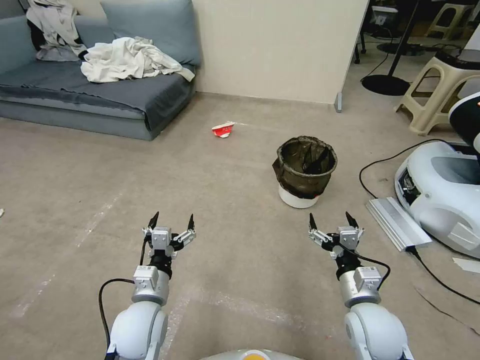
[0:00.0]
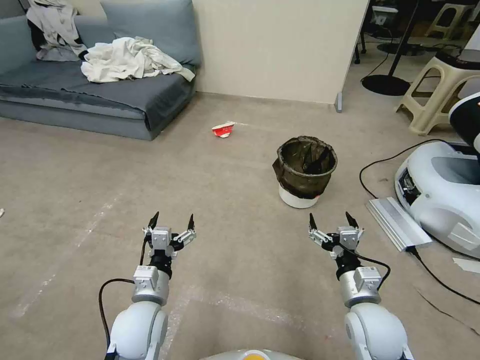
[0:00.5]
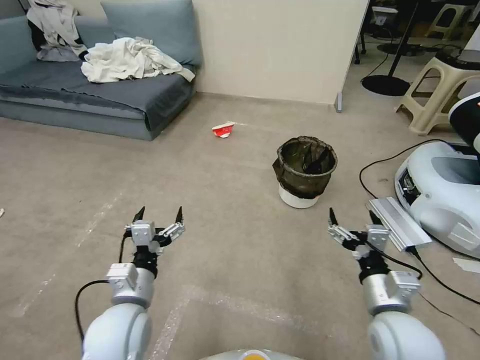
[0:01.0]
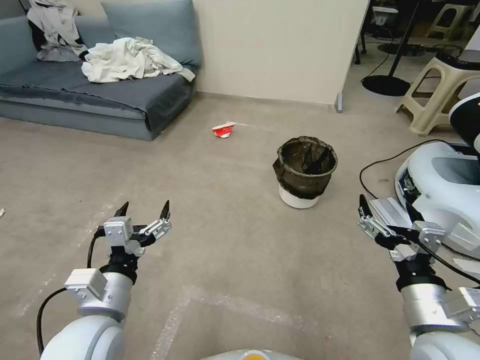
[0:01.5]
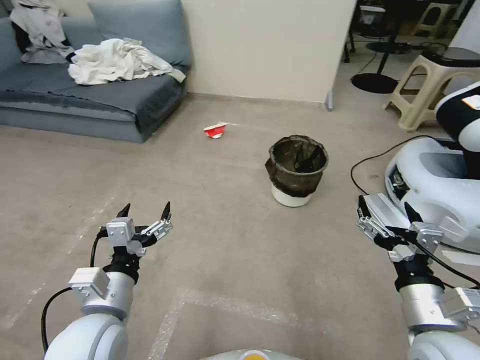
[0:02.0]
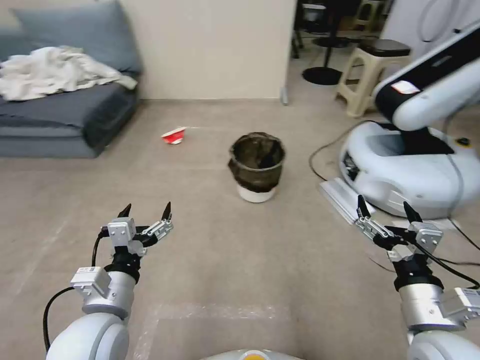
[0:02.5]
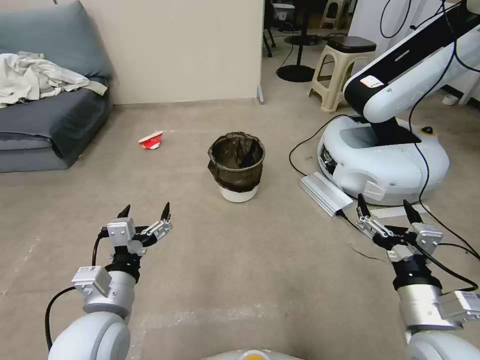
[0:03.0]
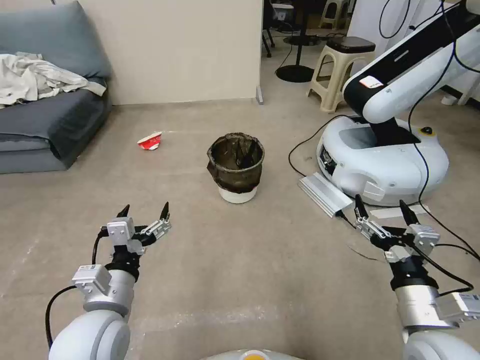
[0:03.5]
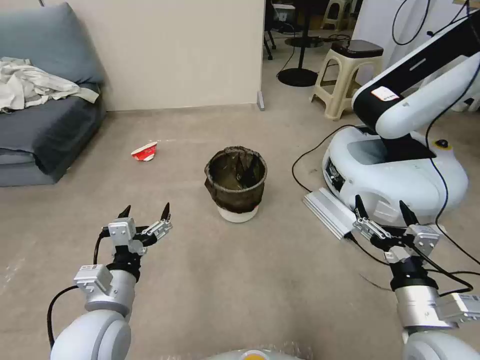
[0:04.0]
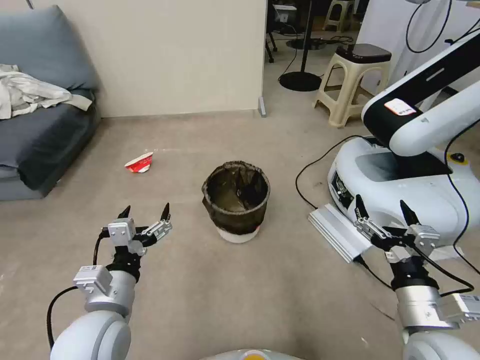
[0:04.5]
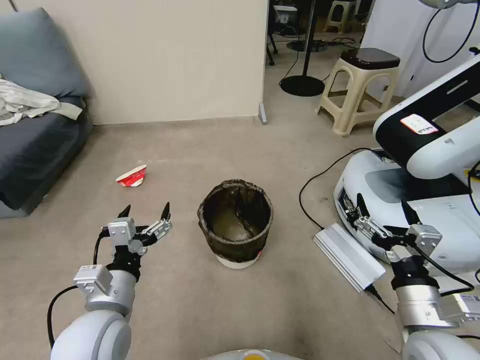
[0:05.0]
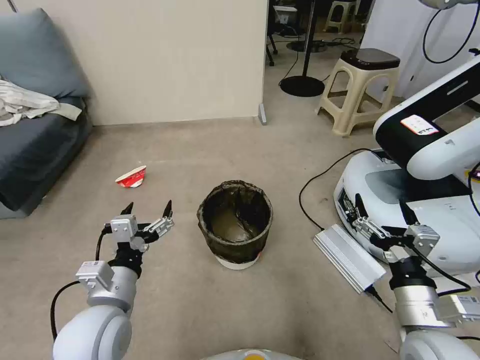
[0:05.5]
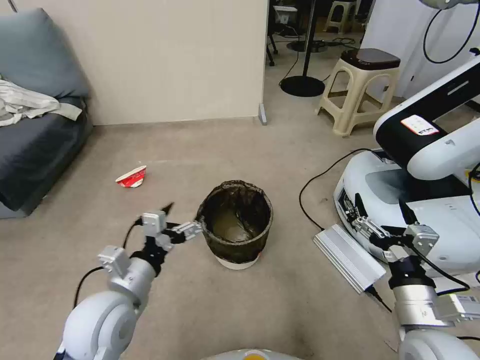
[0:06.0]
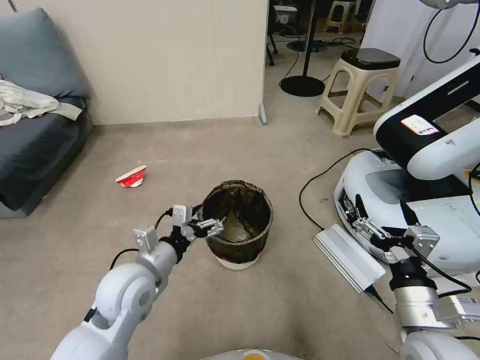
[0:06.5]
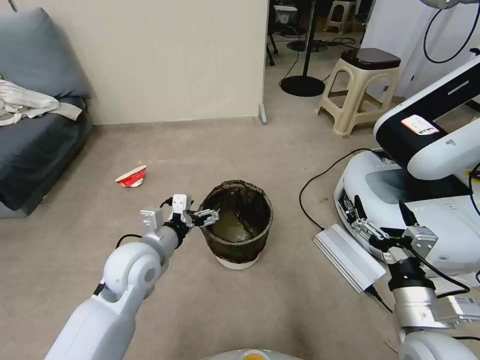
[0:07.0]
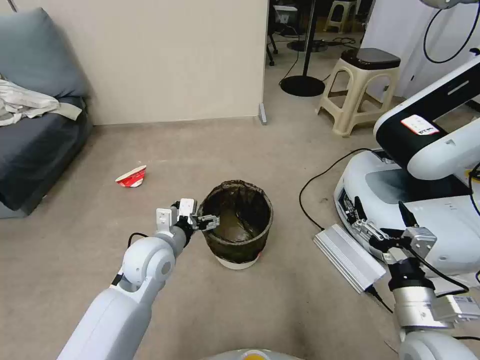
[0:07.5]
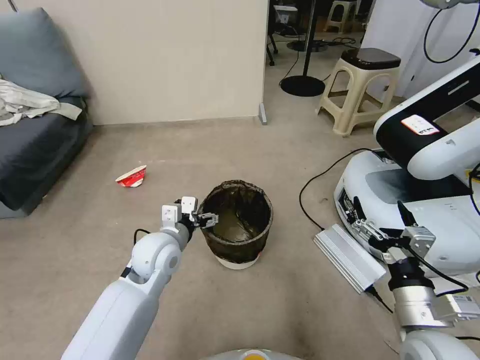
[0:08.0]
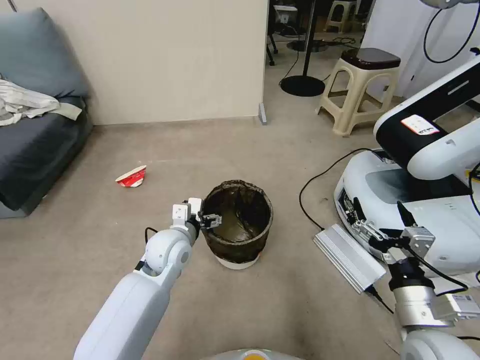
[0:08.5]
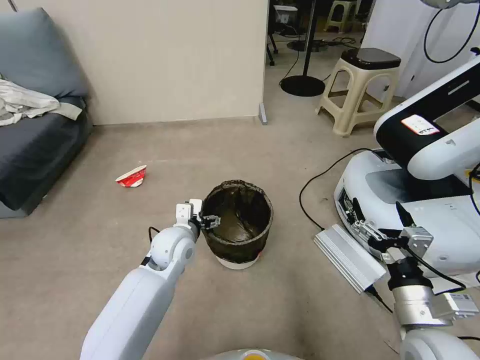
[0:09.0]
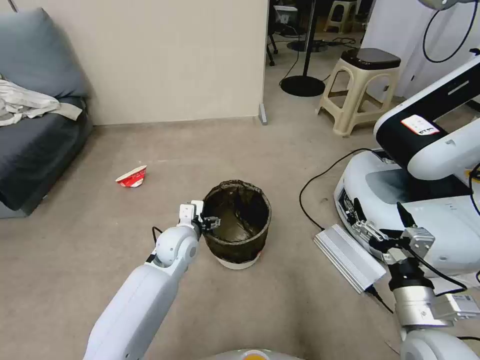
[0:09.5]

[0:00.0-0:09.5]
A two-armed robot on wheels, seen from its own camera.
Task of the whole recording: Pick up the trash can from the floor.
0:05.5 to 0:07.5: The left gripper is displaced forward by roughly 15 cm.
0:07.5 to 0:09.5: The left gripper moves forward and downward, approximately 10 cm.

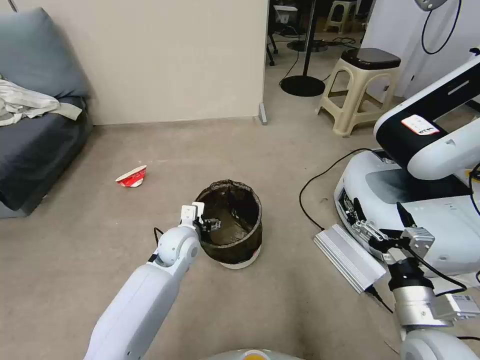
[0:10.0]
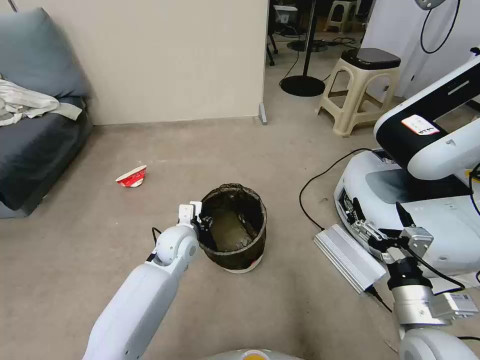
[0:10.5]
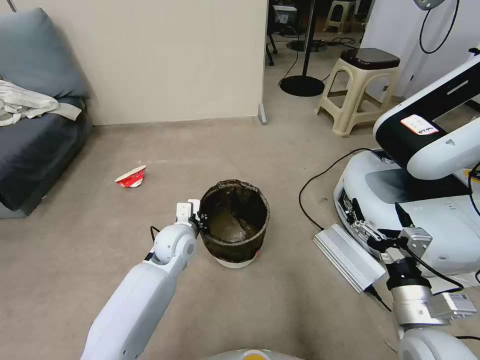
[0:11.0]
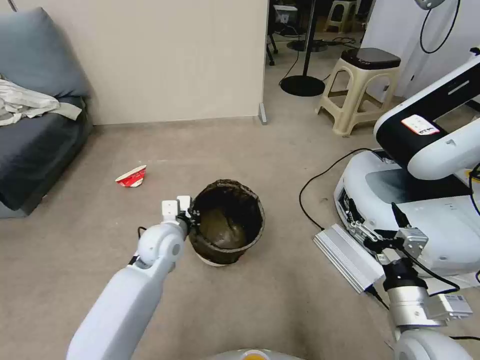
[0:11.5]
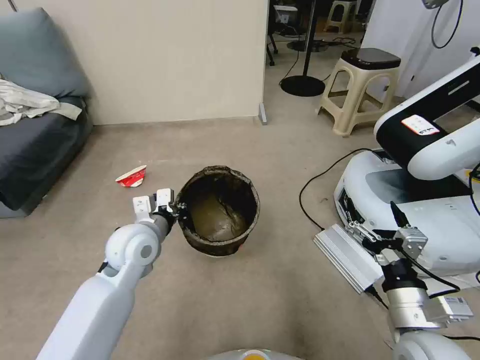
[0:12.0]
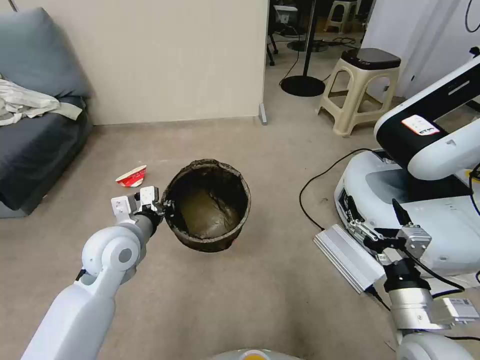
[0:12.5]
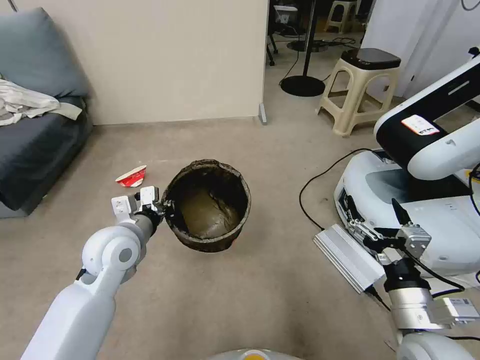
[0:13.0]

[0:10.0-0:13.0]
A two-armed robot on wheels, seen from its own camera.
Task of the whole recording: Pick up the trash can from the floor.
0:10.0 to 0:11.5: The left gripper closes.
0:11.5 to 0:13.0: The left gripper is displaced upward and to the left by some 10 cm.

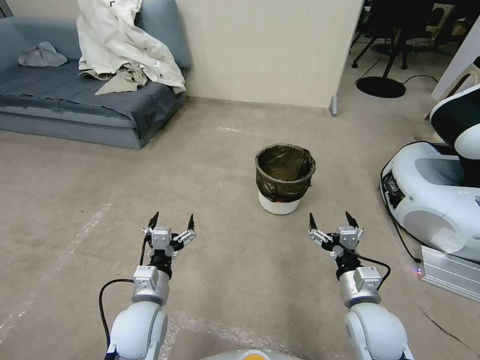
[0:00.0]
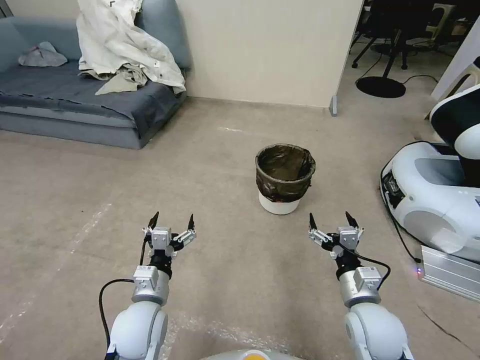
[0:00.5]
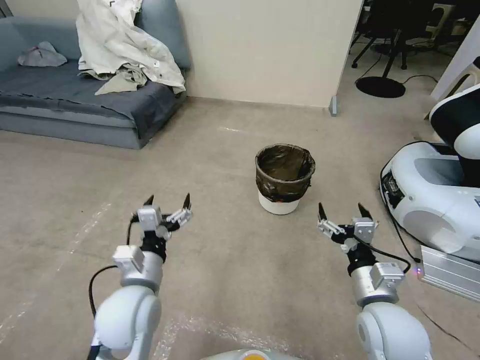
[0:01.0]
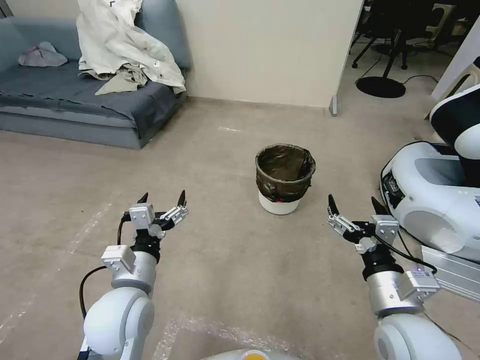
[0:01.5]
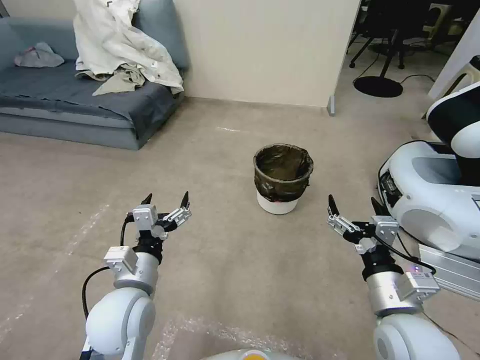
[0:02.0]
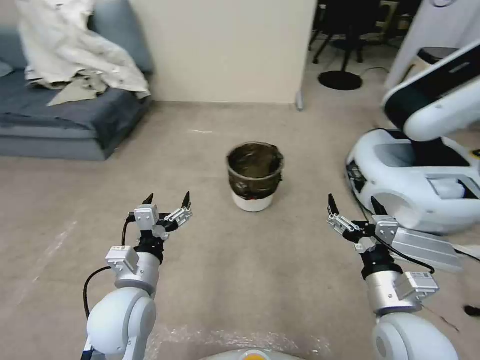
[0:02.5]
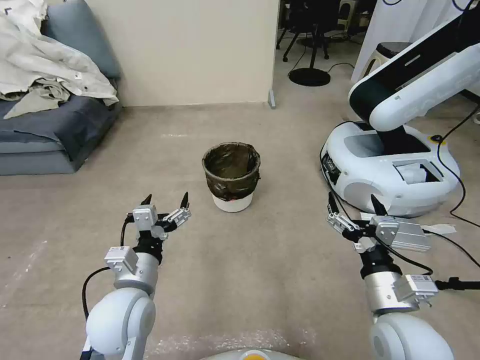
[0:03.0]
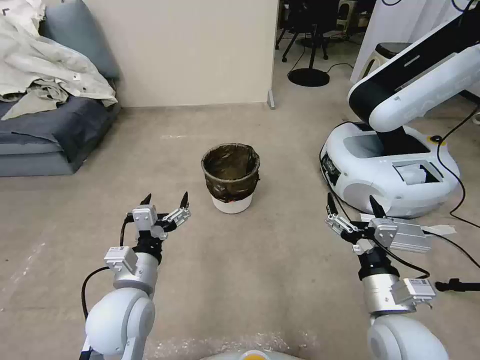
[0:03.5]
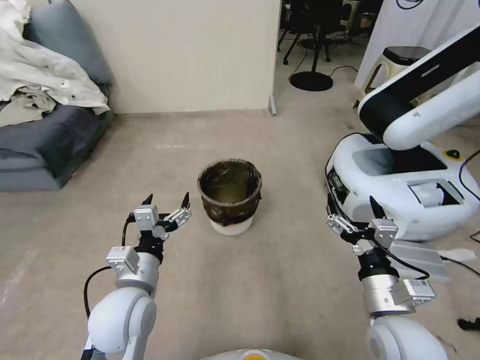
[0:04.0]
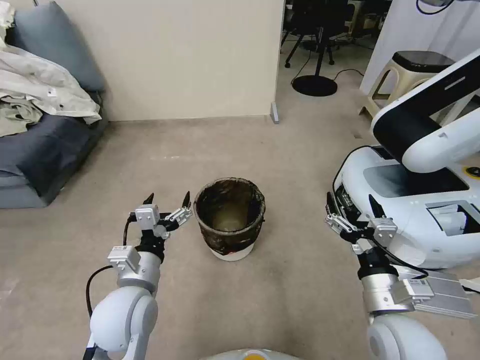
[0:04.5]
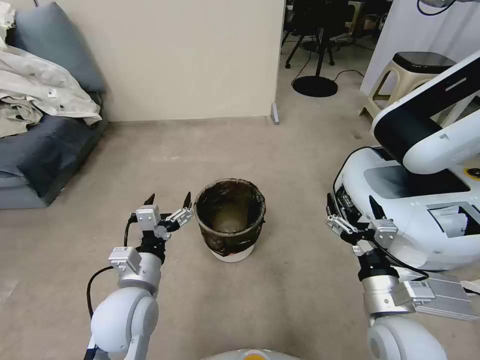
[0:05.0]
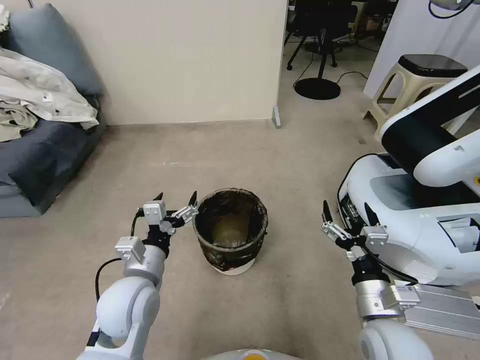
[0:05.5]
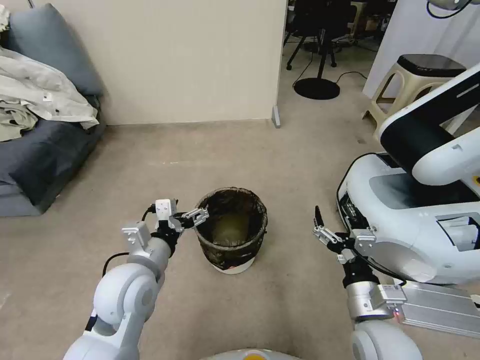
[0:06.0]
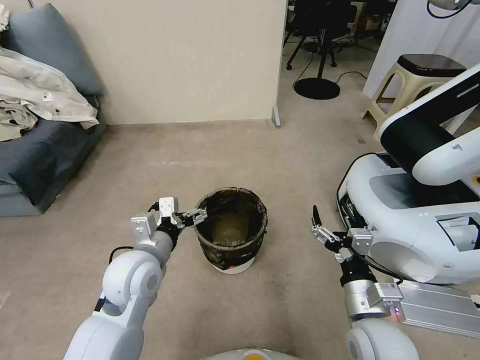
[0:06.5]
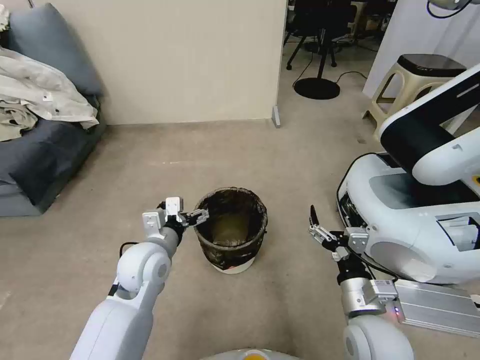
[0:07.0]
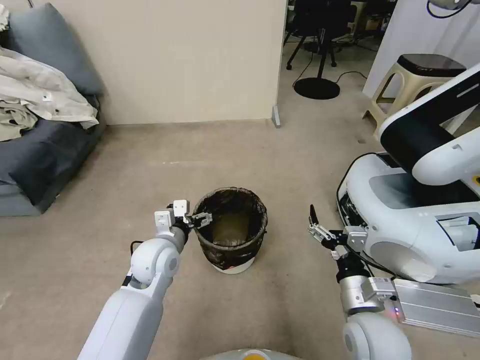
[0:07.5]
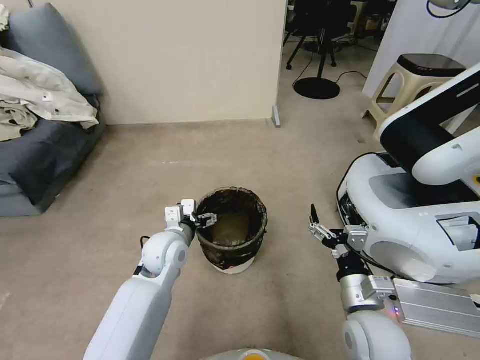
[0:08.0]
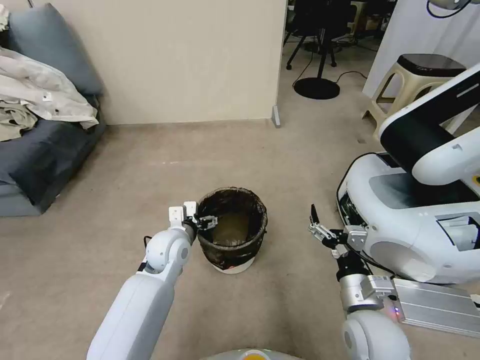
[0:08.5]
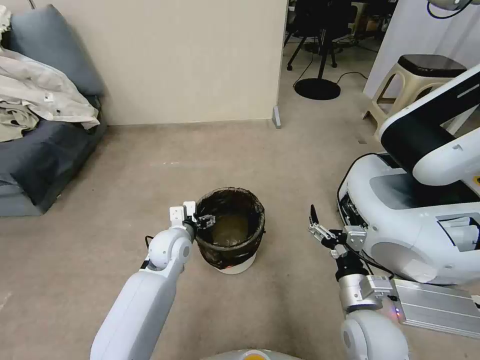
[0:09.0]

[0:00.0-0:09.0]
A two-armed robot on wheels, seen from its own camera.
Task of the whole recording: Pick up the trash can from the floor.
0:04.5 to 0:07.0: The left gripper is displaced forward by some 10 cm.
0:07.0 to 0:09.0: The left gripper is displaced forward and downward by some 10 cm.

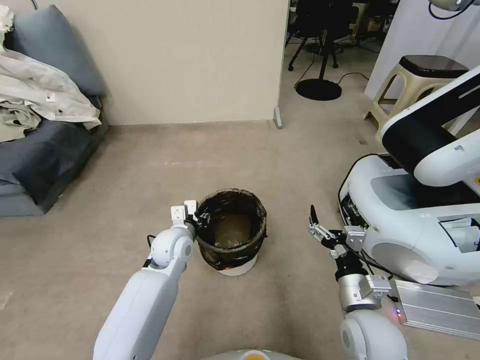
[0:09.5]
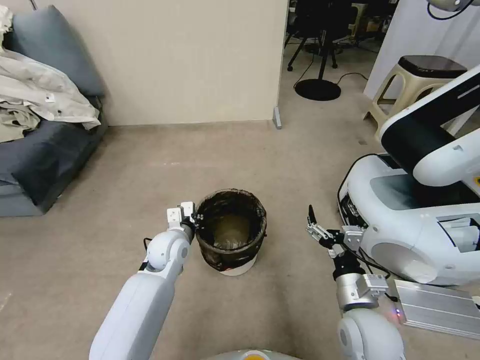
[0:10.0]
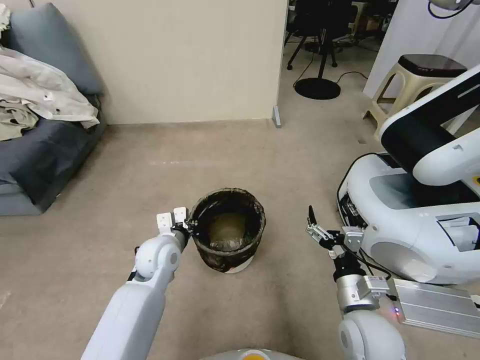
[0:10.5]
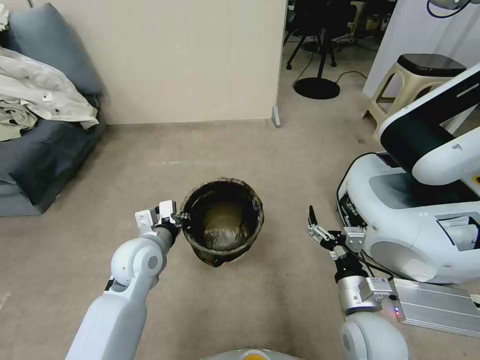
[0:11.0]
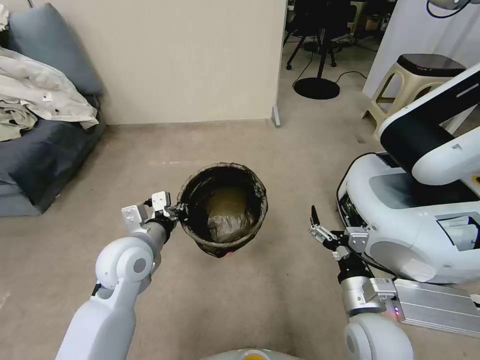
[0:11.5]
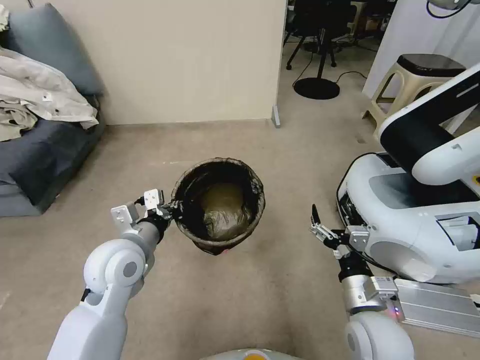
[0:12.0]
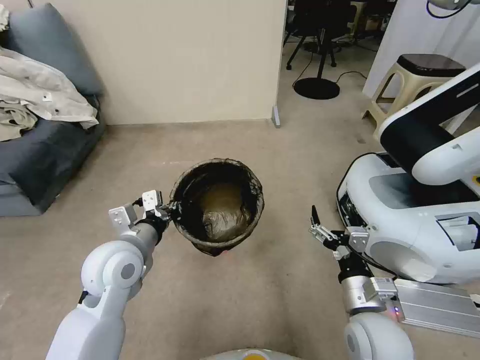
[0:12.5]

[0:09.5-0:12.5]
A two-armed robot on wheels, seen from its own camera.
Task of the whole recording: Pick up the trash can from the floor.
0:09.5 to 0:11.0: The left gripper travels upward and backward by some 10 cm.
0:11.0 to 0:12.5: The left gripper shifts approximately 5 cm upward.
